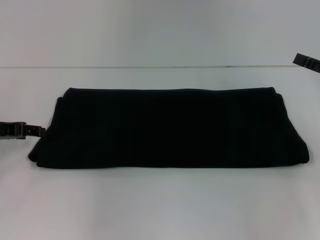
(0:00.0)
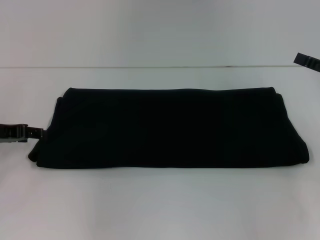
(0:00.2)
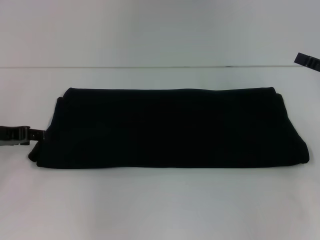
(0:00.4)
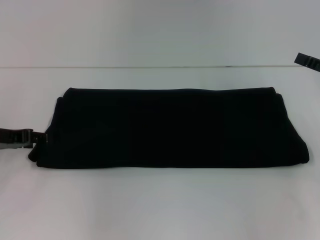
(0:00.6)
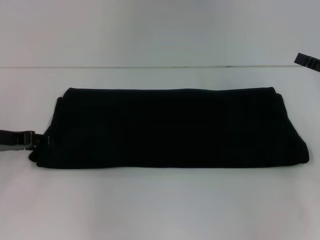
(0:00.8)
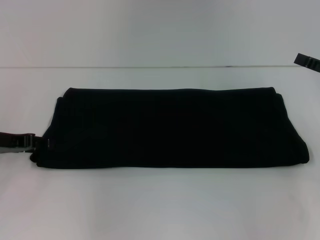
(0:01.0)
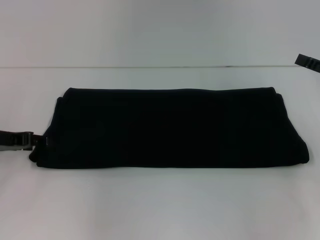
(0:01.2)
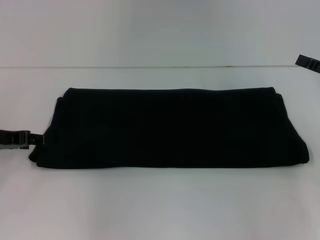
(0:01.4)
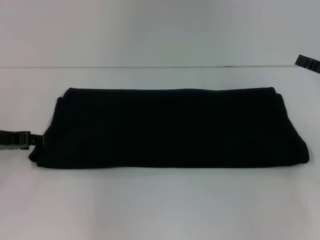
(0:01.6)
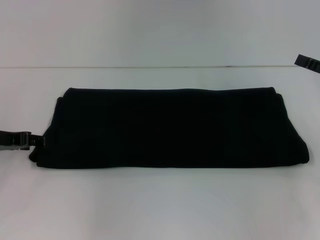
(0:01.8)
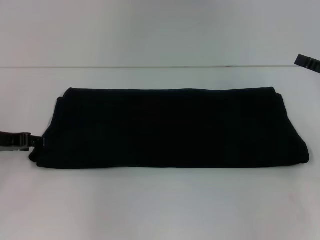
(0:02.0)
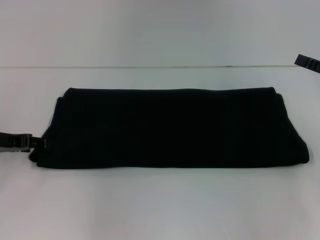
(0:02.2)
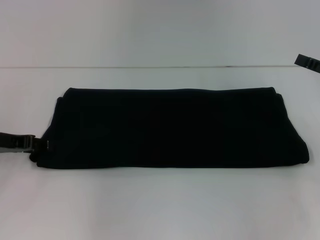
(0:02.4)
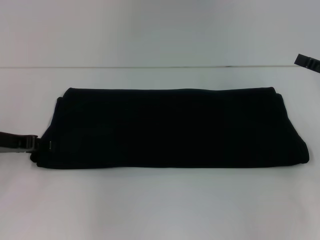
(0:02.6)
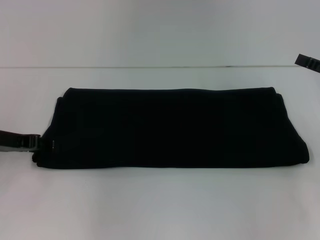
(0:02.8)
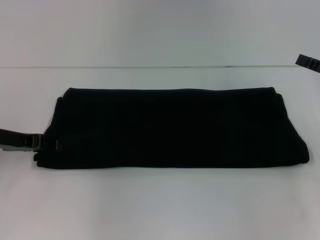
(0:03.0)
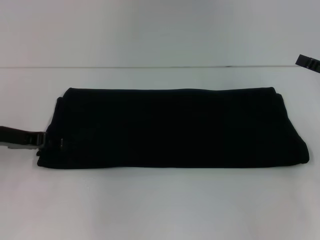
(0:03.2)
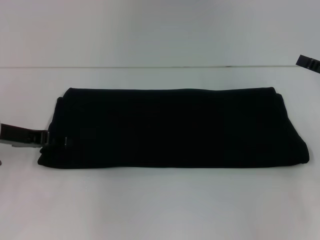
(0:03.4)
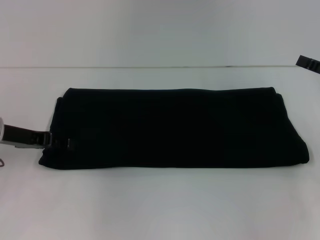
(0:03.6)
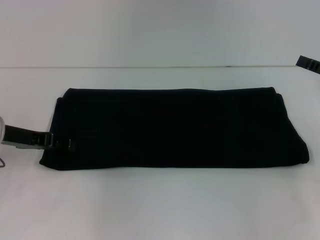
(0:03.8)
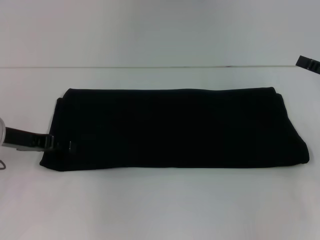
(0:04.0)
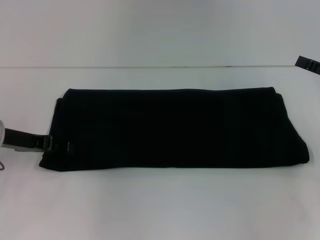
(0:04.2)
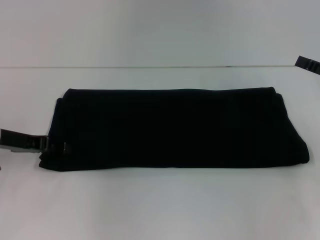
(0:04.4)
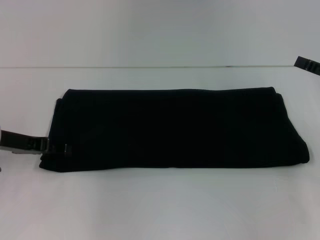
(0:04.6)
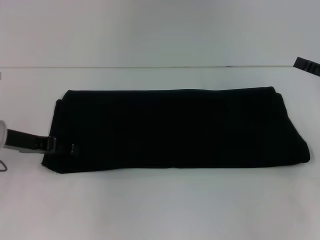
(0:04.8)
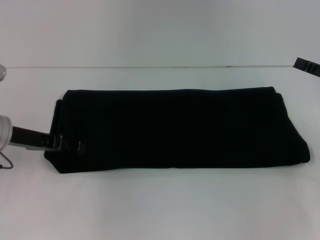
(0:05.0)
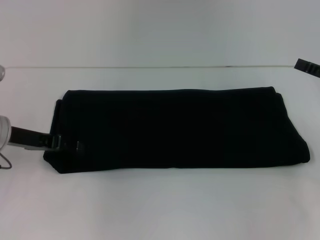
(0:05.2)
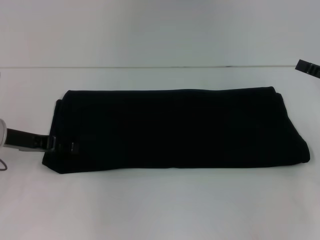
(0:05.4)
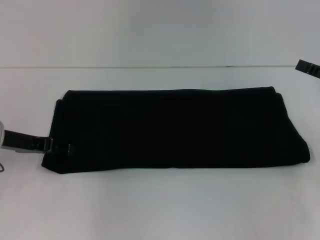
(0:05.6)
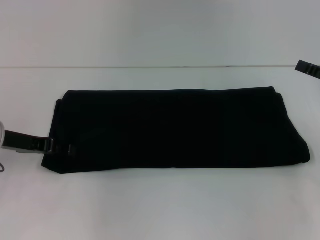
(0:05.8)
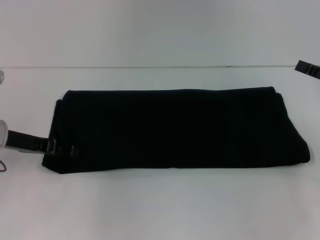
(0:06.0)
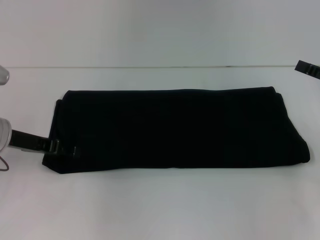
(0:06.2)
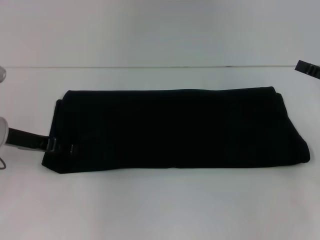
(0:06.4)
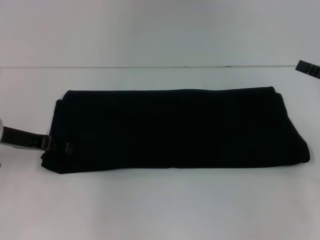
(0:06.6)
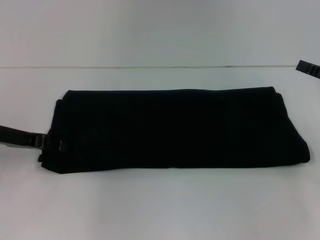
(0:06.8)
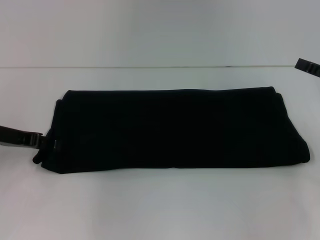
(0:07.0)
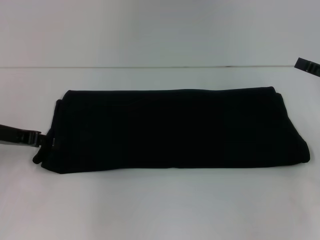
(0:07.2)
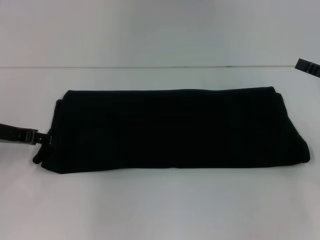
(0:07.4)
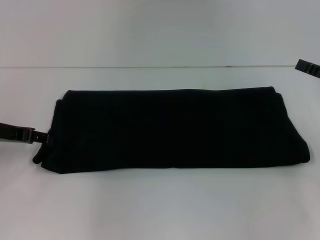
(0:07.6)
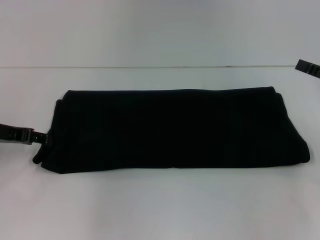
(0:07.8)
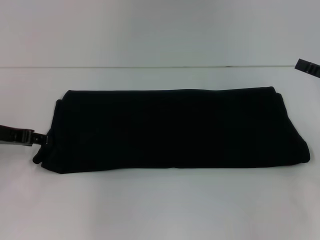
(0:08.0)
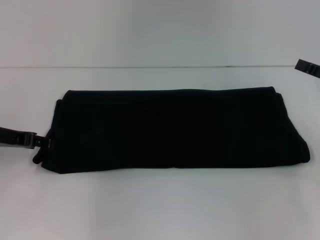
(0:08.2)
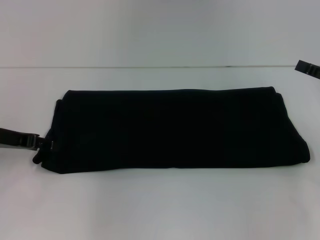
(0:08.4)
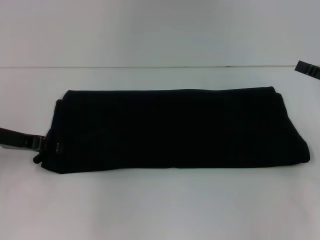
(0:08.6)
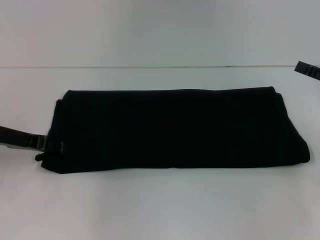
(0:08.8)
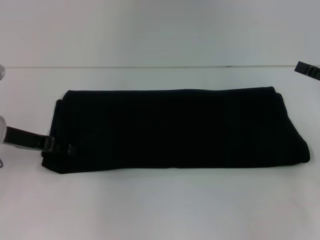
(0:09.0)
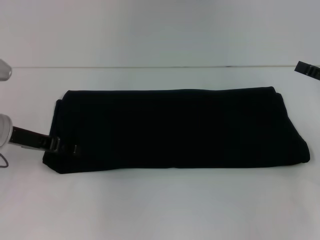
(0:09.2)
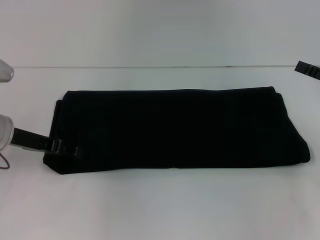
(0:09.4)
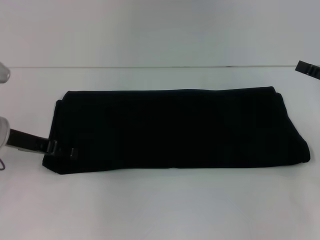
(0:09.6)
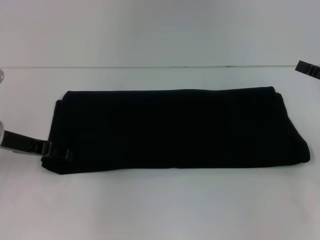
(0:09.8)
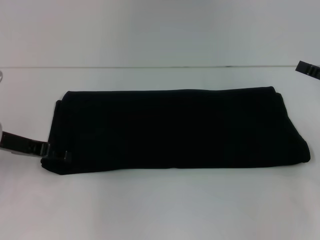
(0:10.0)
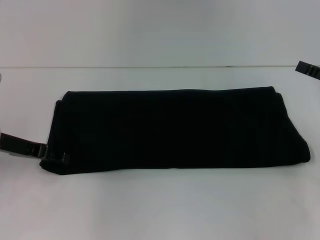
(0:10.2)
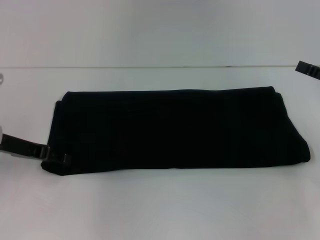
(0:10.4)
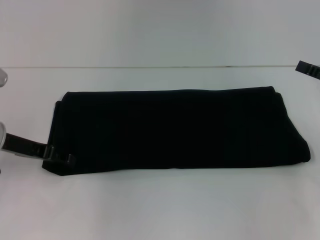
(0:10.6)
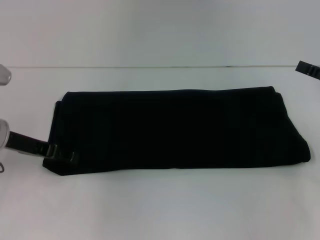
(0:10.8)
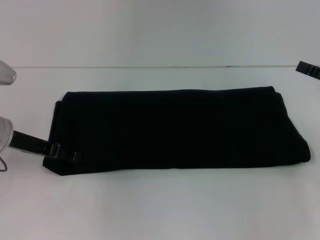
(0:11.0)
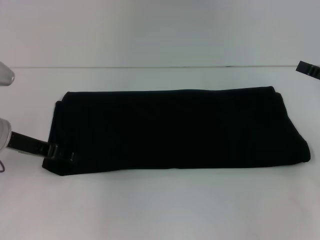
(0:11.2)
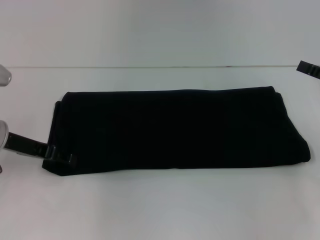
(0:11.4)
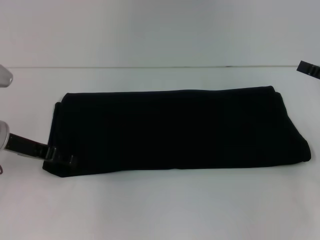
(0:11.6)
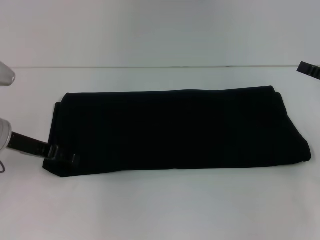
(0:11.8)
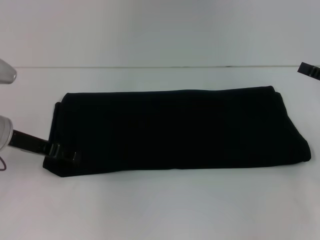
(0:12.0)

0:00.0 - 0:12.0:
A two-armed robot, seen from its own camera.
0:00.0 - 0:01.6: The grippers move only a little.
0:03.0 - 0:09.0: The grippers stay close to where they were, moving slightly.
0:09.0 - 0:10.4: Neither gripper changes place.
0:10.4 - 0:12.0: The grippers move only a little.

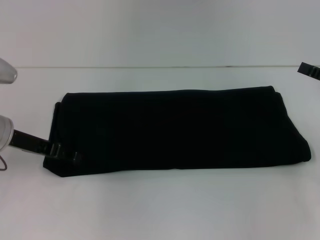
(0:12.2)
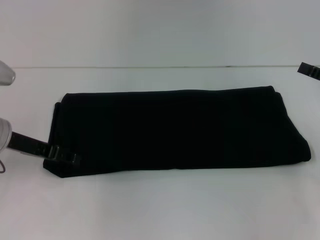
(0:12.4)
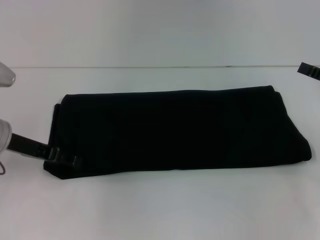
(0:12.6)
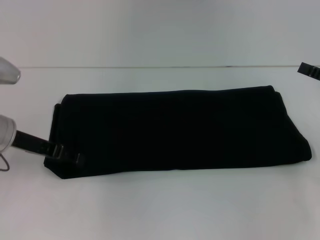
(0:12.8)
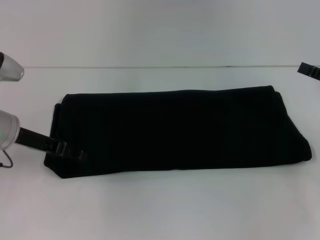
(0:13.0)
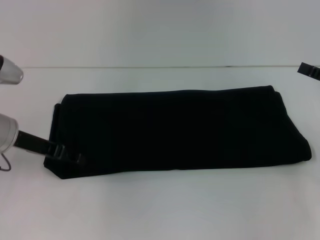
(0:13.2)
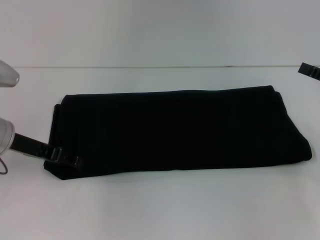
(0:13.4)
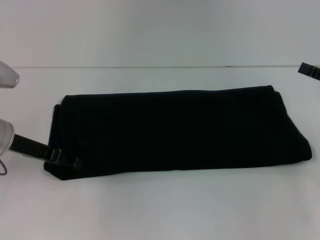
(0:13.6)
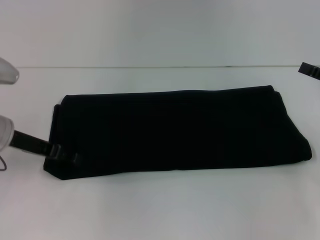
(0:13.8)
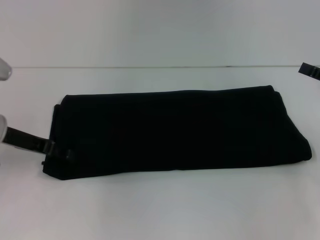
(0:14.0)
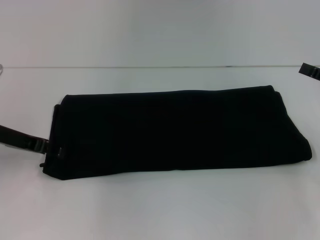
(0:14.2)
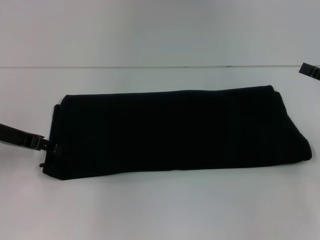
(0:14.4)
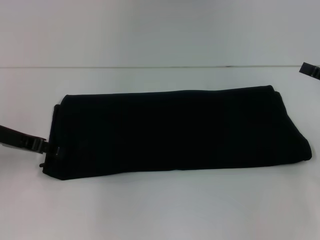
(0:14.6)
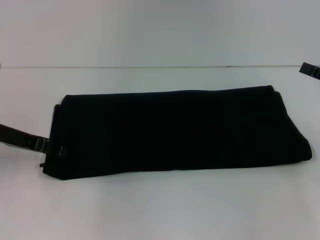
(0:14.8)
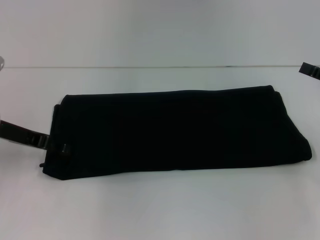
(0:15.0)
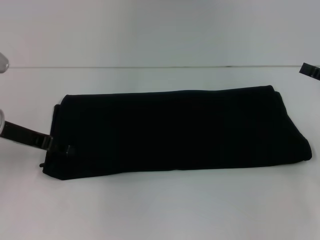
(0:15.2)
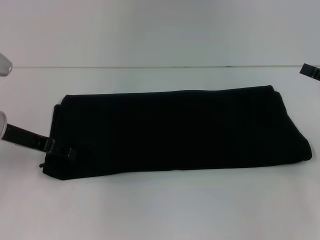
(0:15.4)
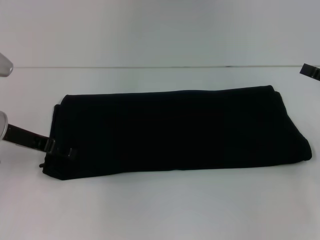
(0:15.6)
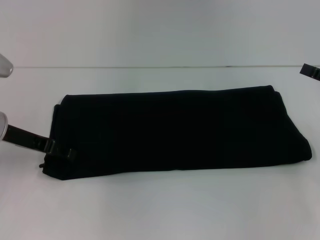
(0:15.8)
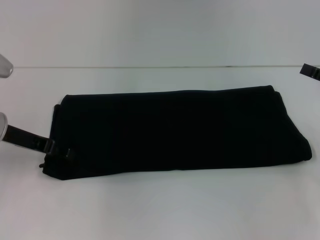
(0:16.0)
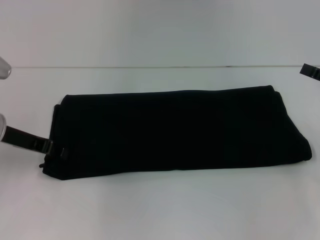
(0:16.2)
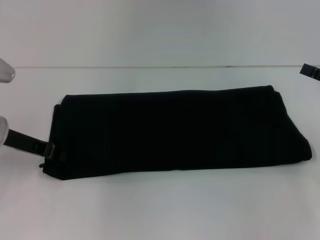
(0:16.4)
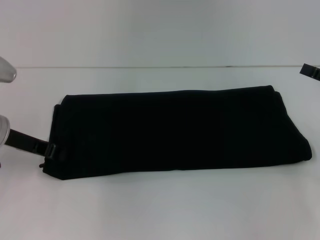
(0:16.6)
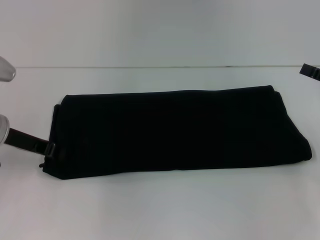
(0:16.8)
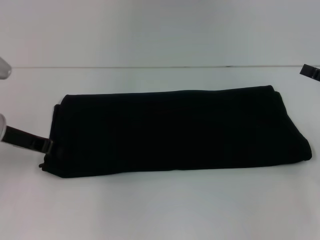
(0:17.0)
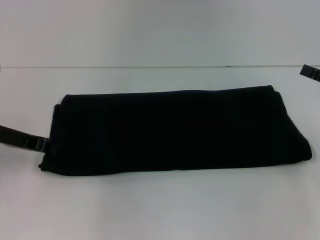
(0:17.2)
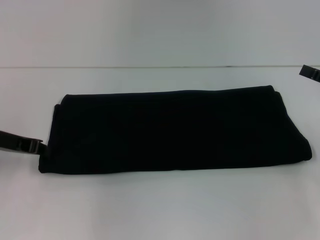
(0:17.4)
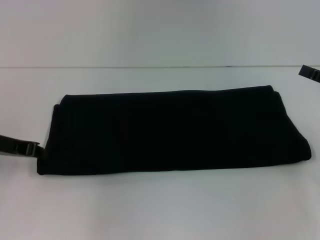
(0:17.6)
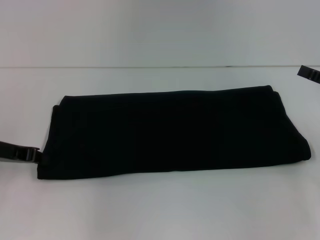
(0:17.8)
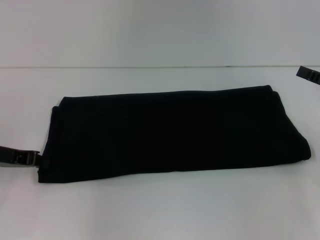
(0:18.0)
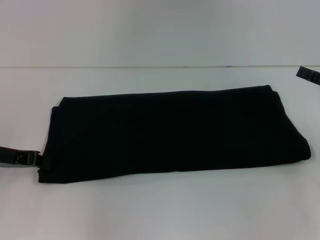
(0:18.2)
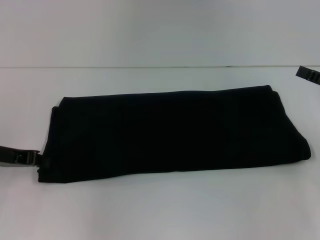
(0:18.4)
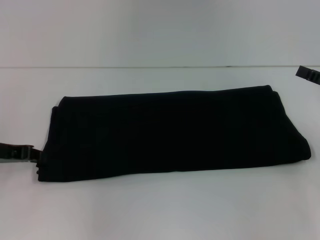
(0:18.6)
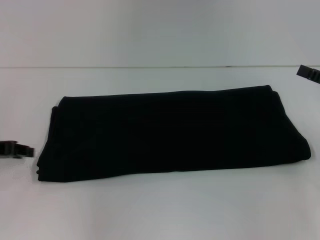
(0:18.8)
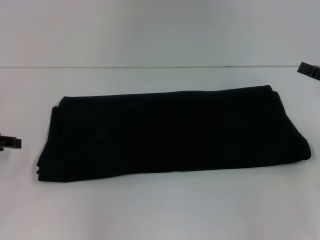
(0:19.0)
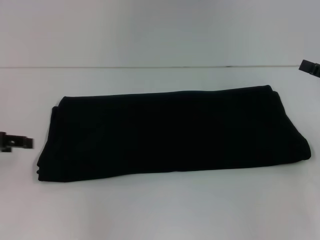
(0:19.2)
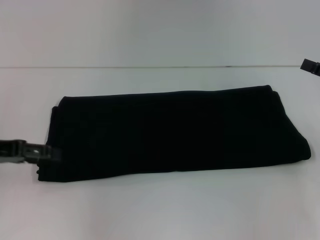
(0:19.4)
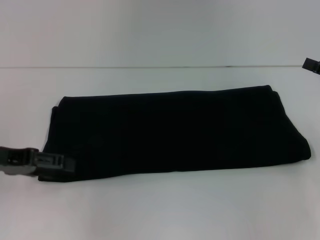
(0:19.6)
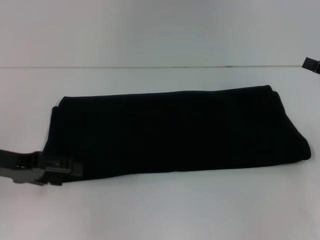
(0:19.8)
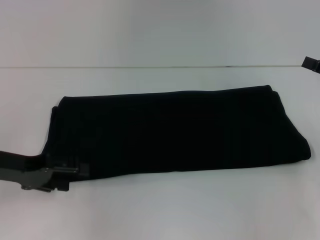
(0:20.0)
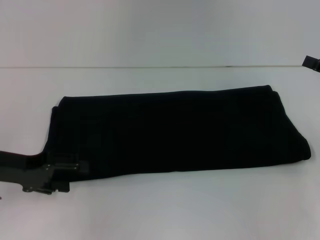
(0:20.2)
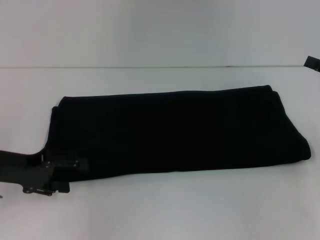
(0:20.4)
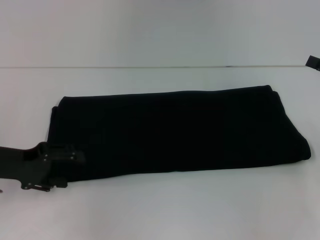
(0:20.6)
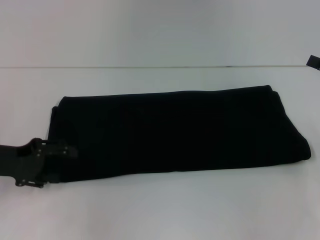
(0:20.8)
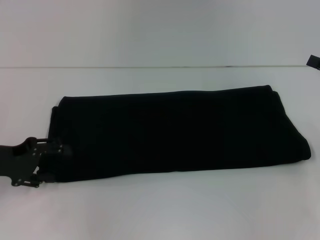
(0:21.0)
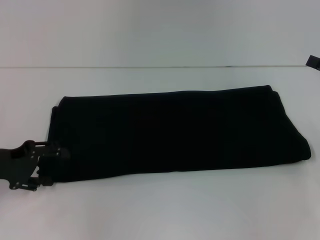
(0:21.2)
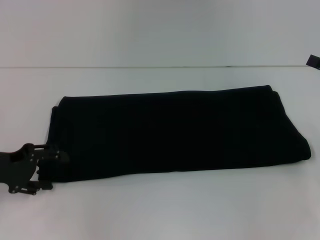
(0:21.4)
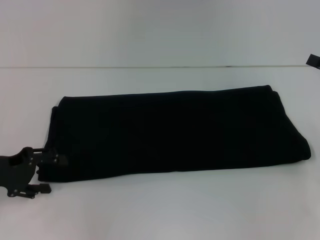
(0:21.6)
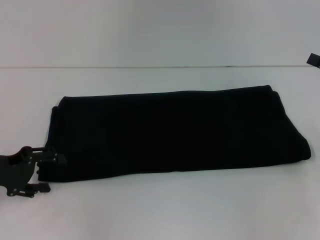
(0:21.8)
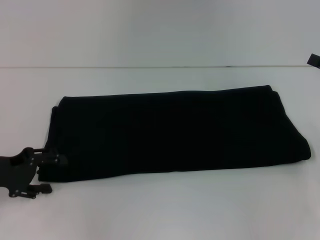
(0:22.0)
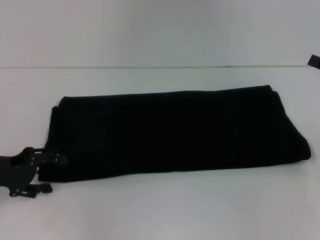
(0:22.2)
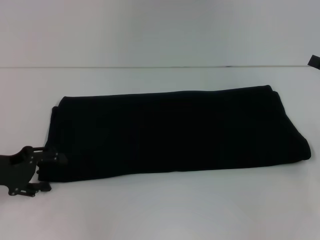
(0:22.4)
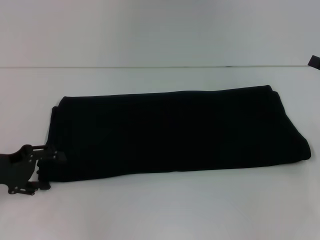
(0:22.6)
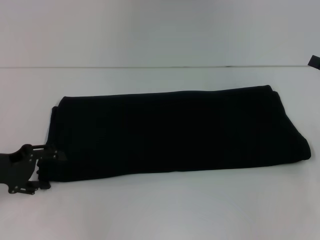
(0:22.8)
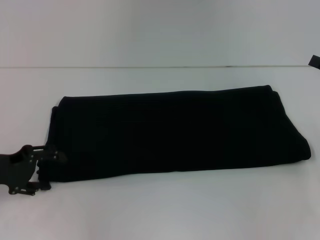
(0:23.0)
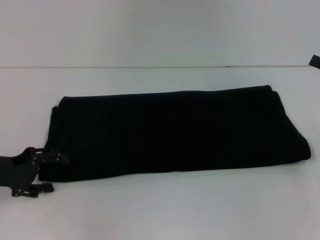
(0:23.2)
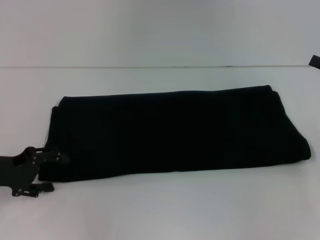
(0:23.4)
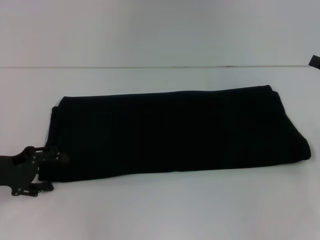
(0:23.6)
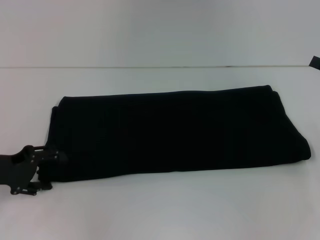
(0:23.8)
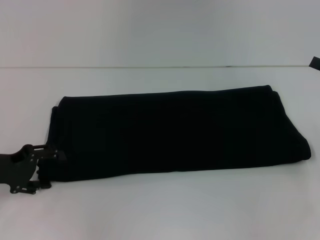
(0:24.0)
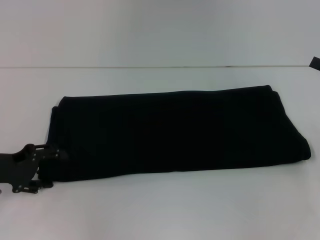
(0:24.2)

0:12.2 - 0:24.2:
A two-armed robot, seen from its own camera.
0:12.2 - 0:13.8: Both grippers stay about where they are.
0:13.8 - 0:15.2: The grippers make only small movements.
0:15.2 - 0:16.6: The left gripper closes.
0:16.6 - 0:18.2: The left gripper shifts by roughly 5 cm.
0:18.2 - 0:19.8: The left gripper opens its fingers.
0:21.2 - 0:22.6: Both grippers stay about where they are.
0:22.6 - 0:24.2: Both grippers stay put.
